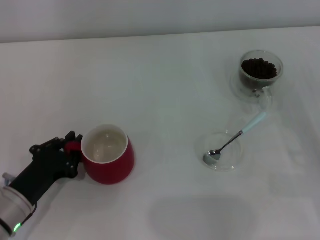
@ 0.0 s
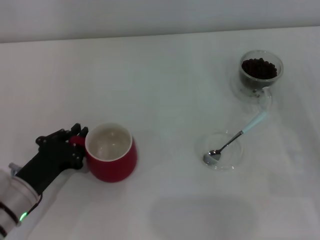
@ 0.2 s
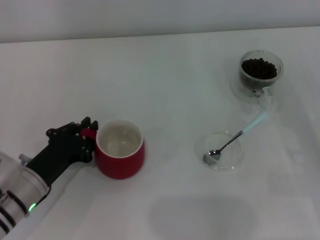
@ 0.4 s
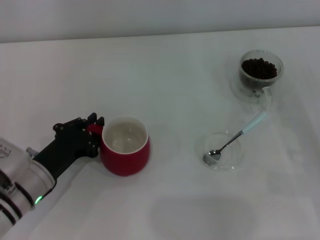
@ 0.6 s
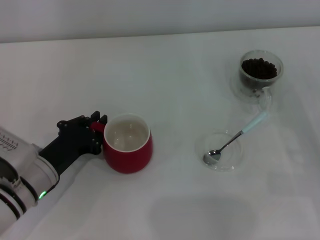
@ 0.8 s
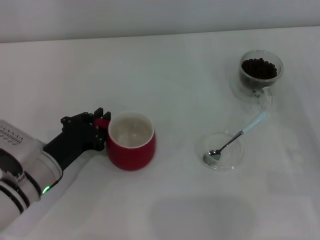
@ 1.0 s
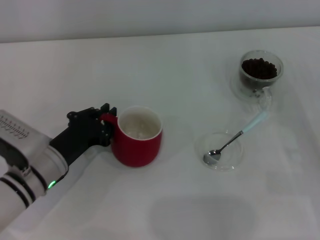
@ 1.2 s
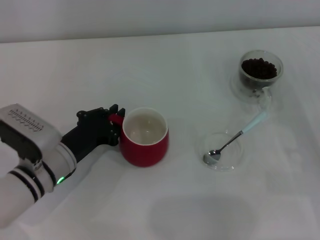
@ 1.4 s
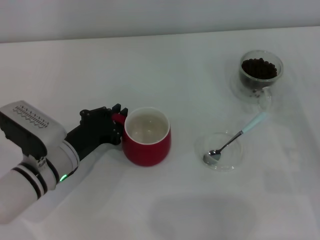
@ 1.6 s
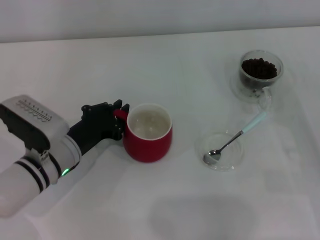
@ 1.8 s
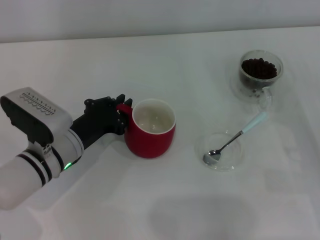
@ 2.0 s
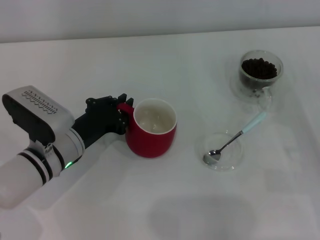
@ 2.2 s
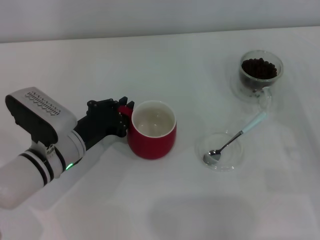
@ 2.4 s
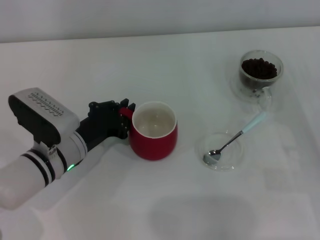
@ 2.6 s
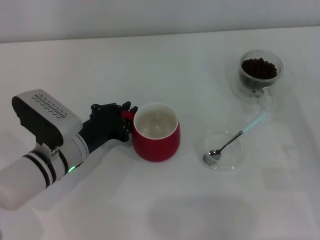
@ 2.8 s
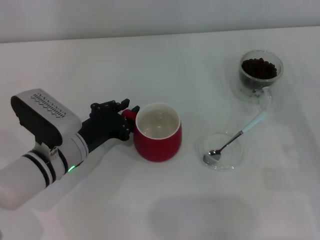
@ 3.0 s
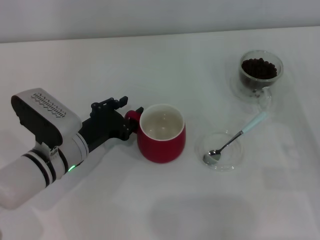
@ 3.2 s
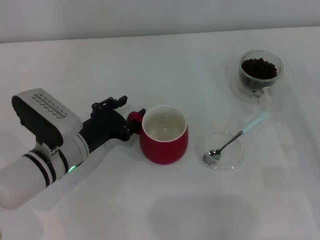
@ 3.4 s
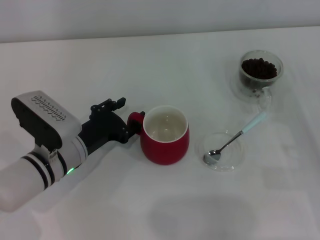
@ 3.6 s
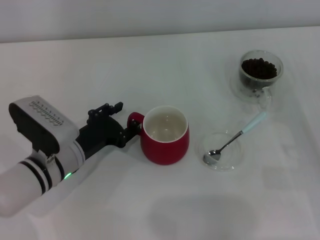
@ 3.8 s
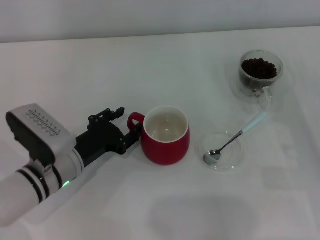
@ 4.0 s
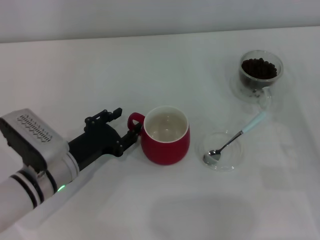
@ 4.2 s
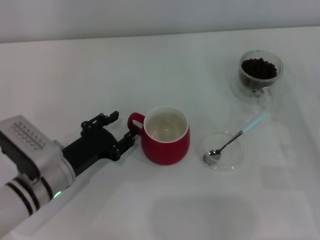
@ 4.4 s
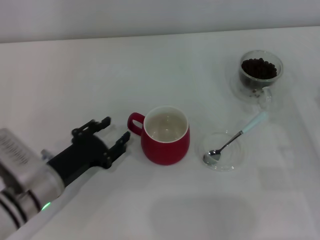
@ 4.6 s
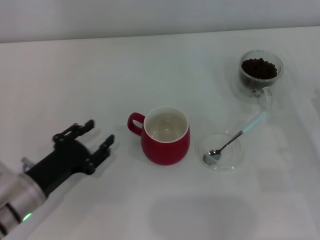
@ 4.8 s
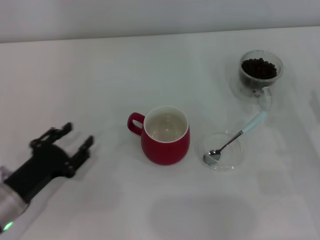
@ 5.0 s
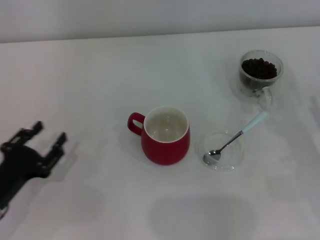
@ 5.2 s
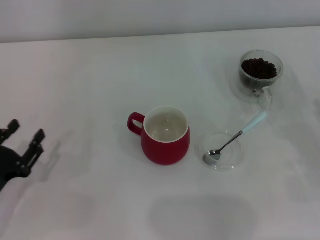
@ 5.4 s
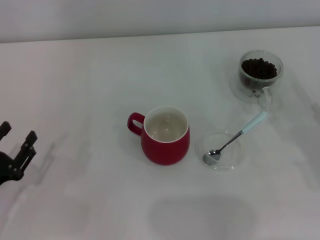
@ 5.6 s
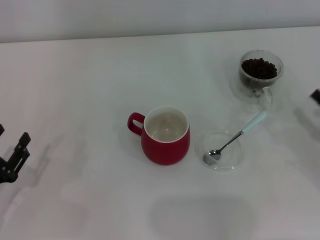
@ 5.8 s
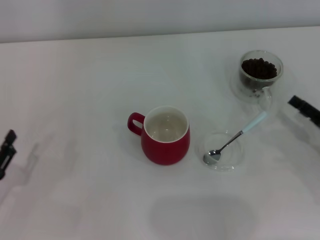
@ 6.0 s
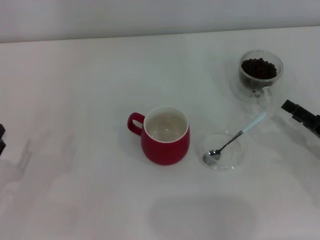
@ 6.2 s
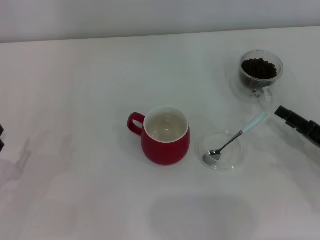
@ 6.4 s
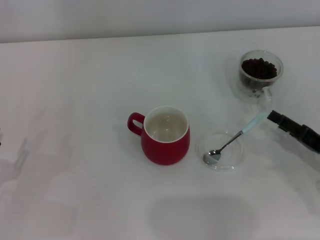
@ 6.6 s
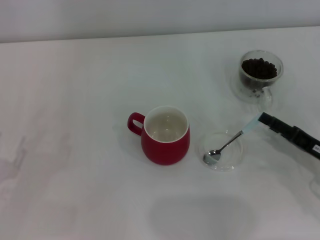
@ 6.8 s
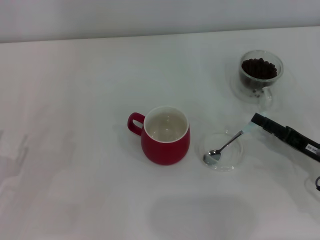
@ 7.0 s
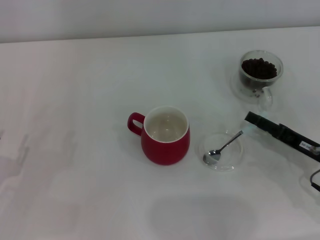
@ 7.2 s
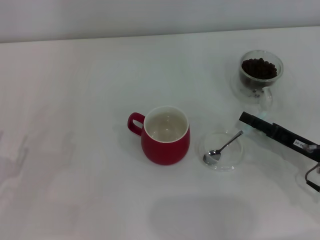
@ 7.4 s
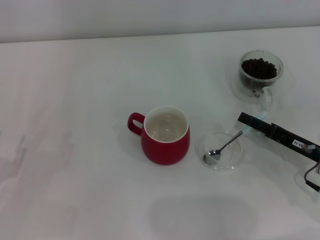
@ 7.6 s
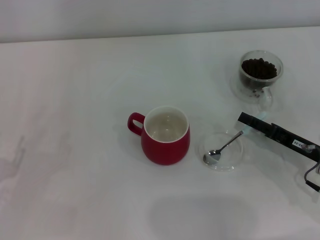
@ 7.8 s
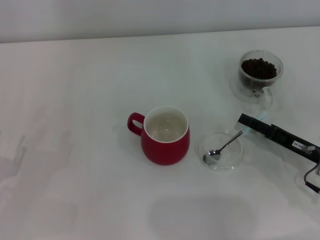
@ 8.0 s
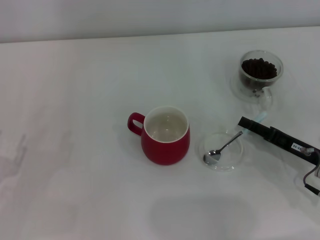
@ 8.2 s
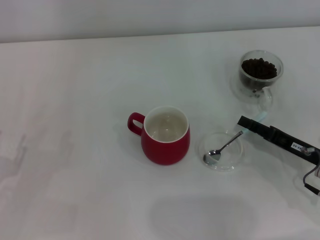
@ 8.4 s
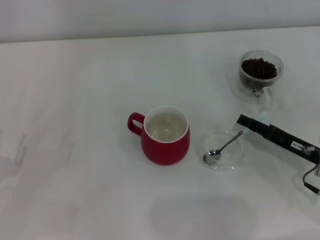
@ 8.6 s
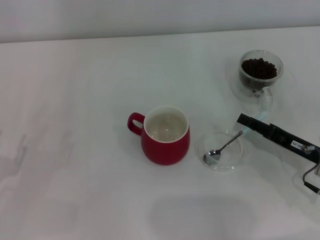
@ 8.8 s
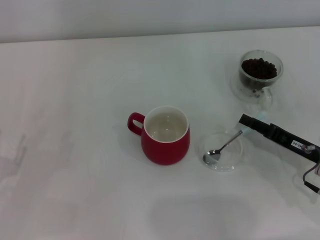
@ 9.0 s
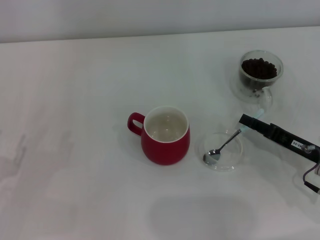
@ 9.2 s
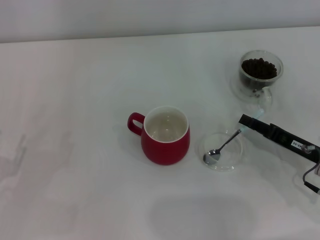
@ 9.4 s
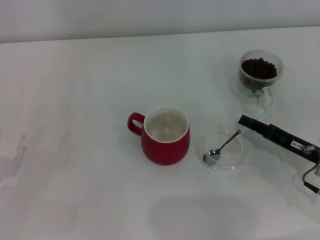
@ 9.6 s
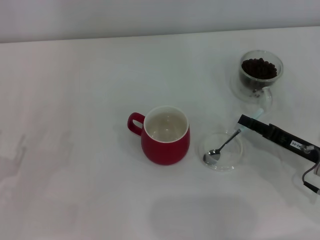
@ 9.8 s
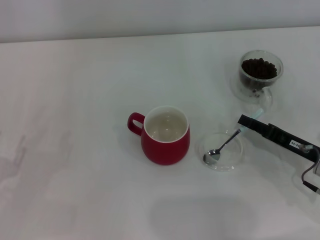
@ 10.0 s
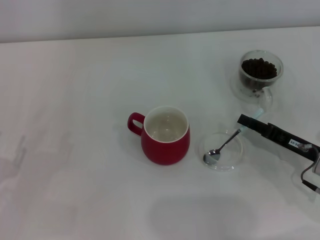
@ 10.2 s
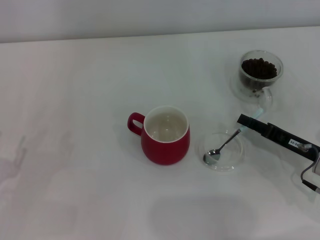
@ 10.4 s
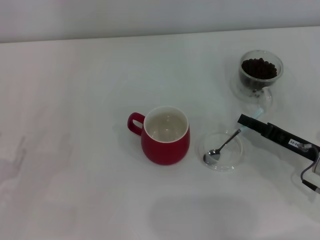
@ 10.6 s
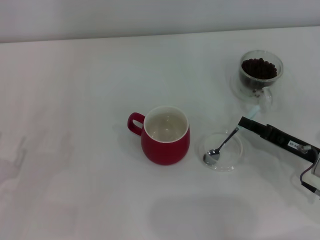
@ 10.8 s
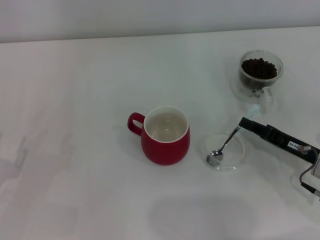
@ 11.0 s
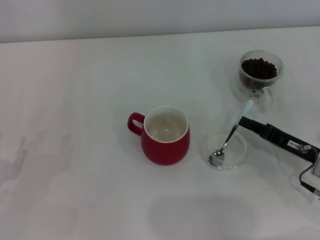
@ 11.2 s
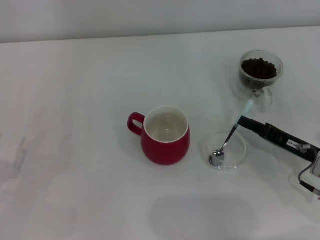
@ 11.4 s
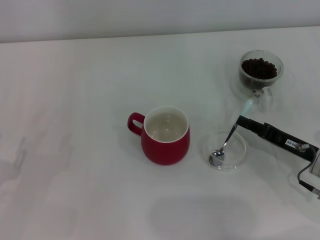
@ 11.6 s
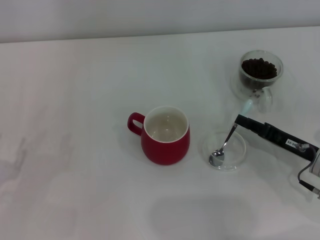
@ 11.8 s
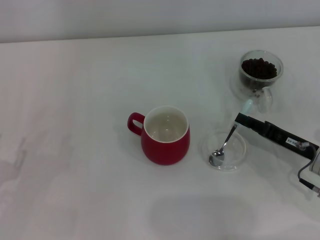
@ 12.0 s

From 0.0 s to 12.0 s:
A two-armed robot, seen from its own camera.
Task of the whole recording: Use a blue spoon to take out the coffee beans from the glass and pour them into the red cup.
Step, from 0.0 s to 4.4 s: Move the cup to the center of view with the left gripper.
From 0.0 s to 1.6 s: The left gripper goes approximately 10 cm forward and to the right.
From 1.6 s to 3.0 s: The grippers make only small movements.
From 3.0 s to 4.4 s: The left gripper opens.
From 4.4 s to 6.0 s: The left gripper moves to the left and backward, about 15 cm.
From 6.0 s to 7.6 s: The right gripper goes approximately 5 cm to the left.
From 7.6 s to 9.0 s: The two grippers keep their place.
From 9.0 s to 10.4 s: The right gripper closes its fingers.
From 10.4 s to 12.0 s: The two grippers keep their place.

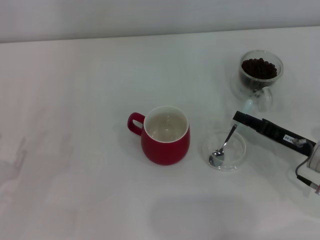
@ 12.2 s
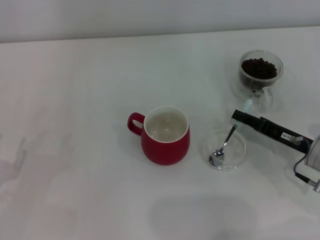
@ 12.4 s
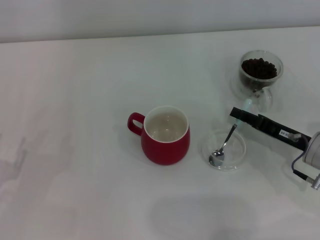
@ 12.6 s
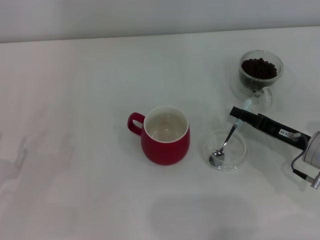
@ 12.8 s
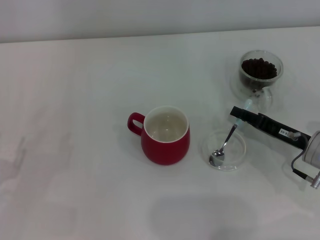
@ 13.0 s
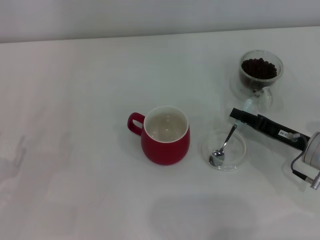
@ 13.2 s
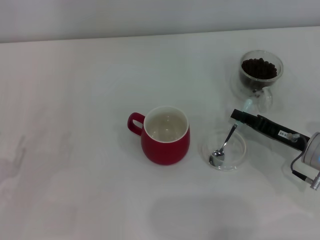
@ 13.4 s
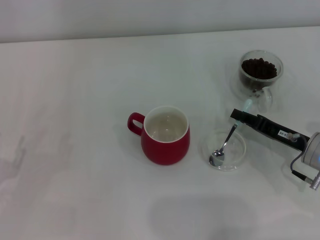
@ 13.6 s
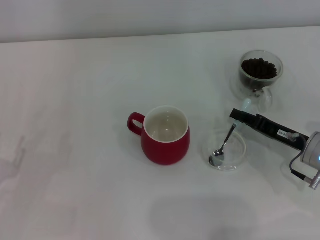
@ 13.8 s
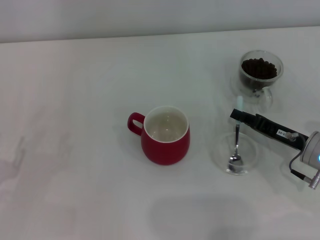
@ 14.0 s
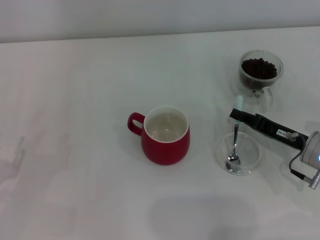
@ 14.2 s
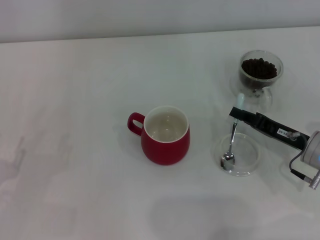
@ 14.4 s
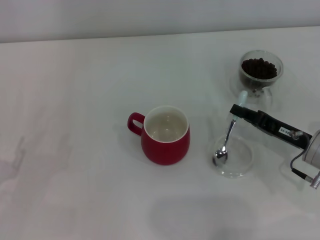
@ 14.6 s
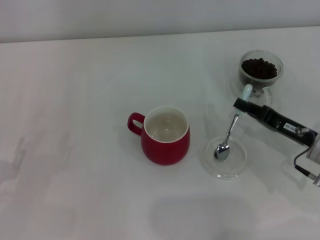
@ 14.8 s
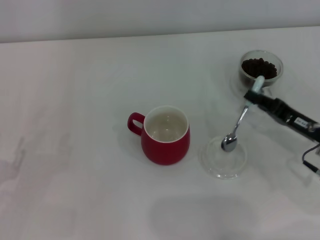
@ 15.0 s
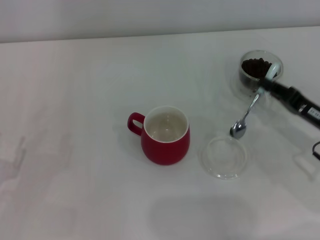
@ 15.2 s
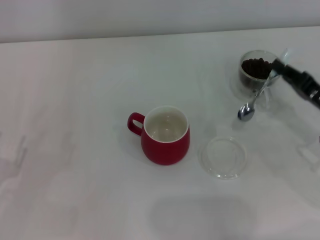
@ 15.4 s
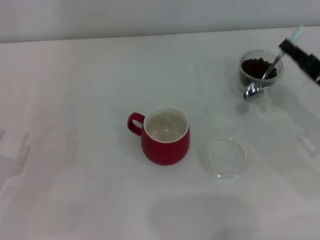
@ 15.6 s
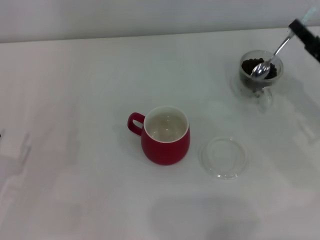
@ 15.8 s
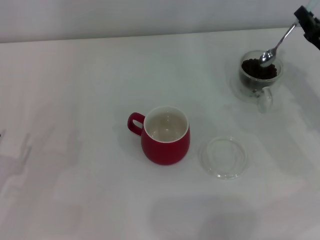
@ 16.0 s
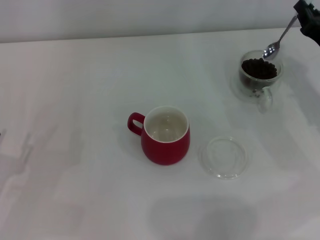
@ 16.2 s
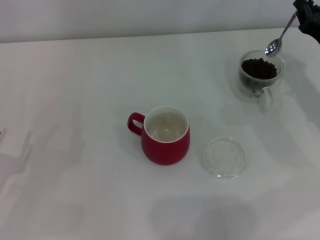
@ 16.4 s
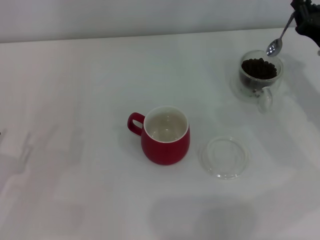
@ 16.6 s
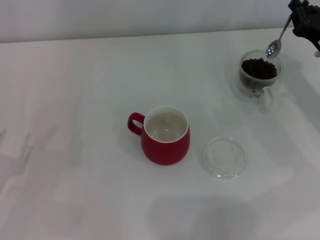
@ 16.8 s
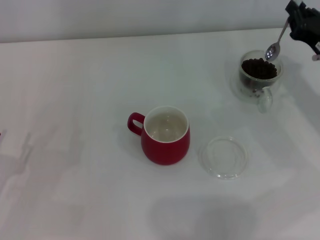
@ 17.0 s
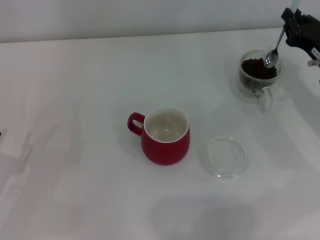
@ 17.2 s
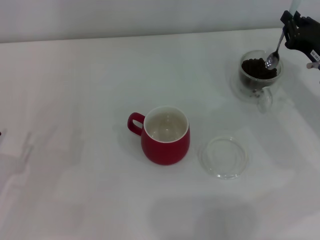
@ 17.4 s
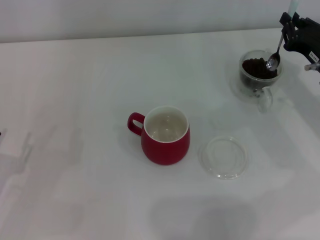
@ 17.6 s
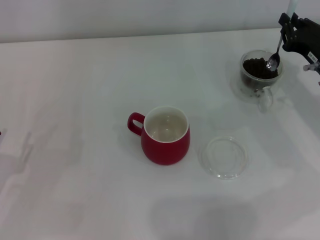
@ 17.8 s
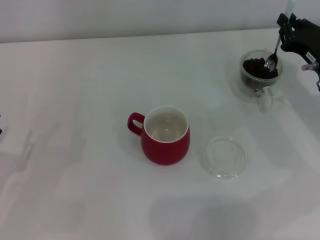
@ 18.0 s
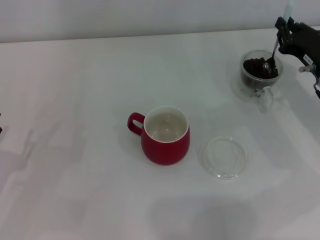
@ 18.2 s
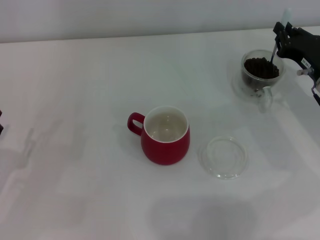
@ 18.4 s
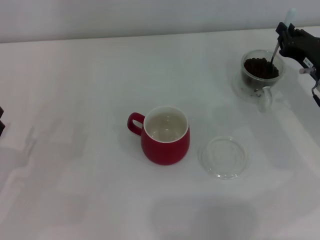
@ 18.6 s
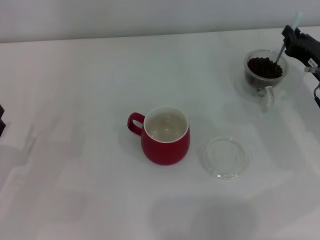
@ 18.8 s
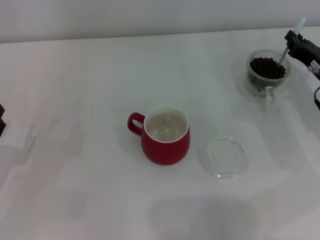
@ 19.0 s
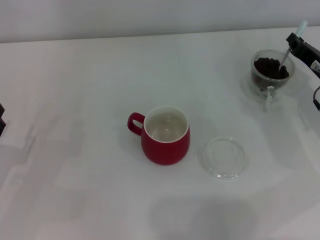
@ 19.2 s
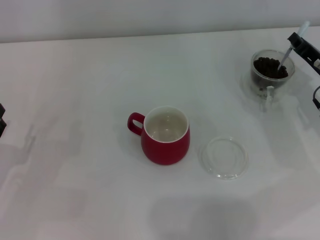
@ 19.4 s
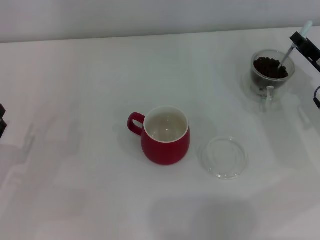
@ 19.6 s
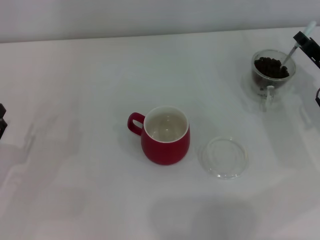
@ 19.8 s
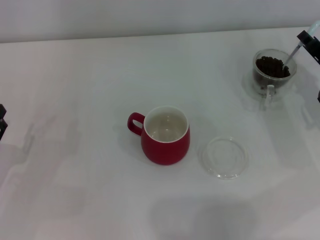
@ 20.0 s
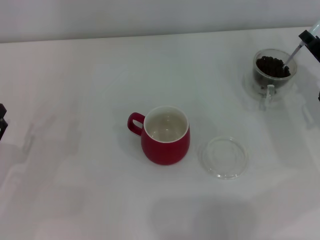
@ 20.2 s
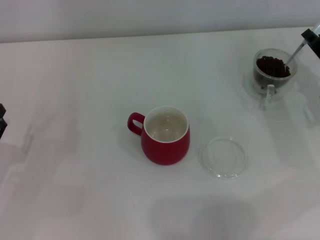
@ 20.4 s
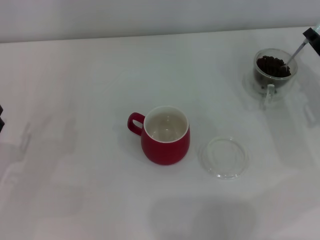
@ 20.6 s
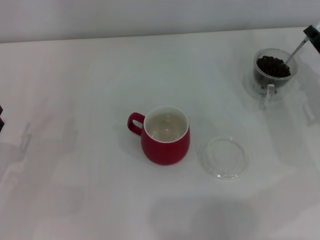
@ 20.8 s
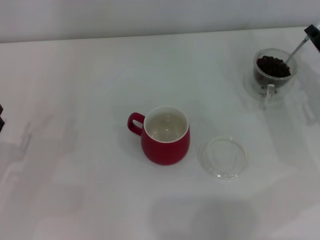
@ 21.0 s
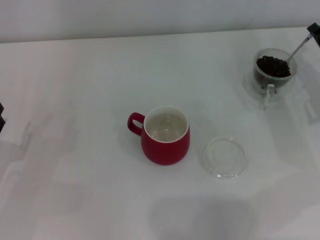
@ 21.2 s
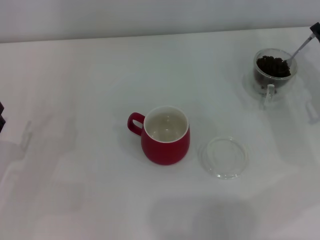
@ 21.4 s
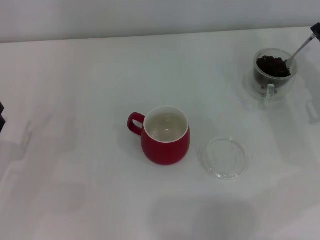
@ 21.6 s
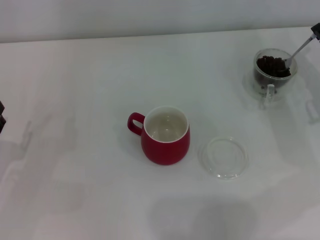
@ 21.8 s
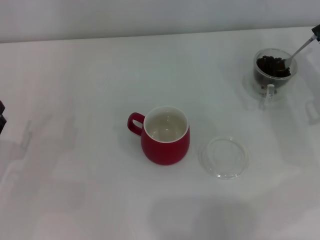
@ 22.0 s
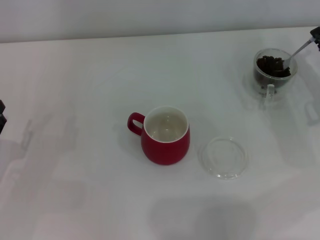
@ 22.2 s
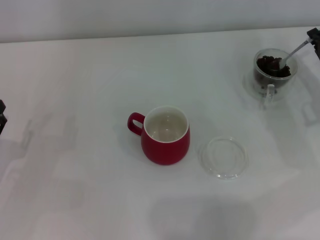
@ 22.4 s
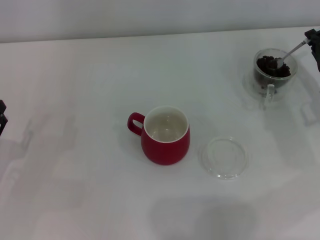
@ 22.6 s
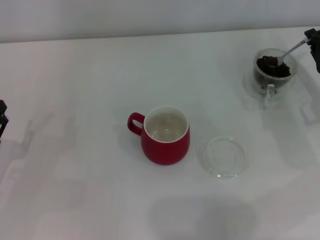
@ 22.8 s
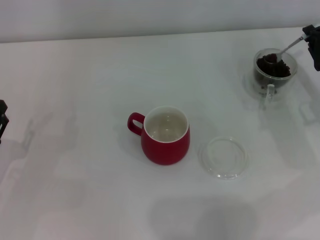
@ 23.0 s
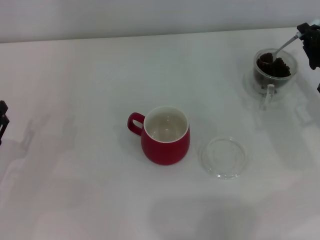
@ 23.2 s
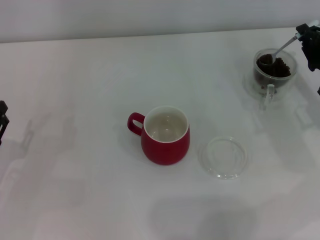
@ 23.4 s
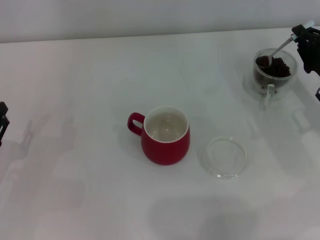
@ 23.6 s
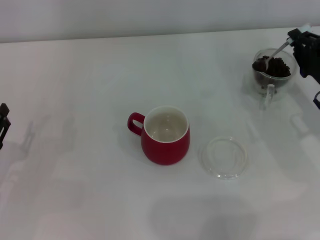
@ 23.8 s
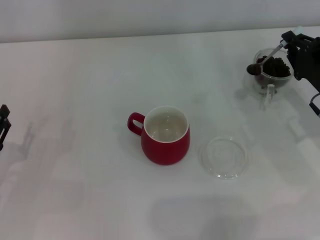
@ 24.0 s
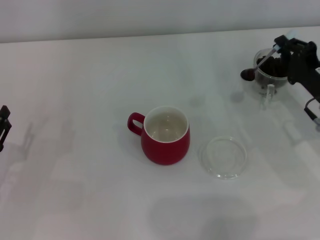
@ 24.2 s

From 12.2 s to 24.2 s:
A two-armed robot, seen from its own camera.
Task of the whole recording: Use a blue spoon to take out the coffee beans from the glass and pour them into the red cup.
Step, from 12.2 s to 15.0 s: Pick up the spoon with the right gripper.
From 12.2 s to 13.8 s: Both grippers stay about where they are.
From 13.8 s to 15.2 s: The grippers move only a little.
From 15.2 s to 16.6 s: The right gripper shifts roughly 10 cm forward.
From 16.6 s to 18.2 s: The grippers stay close to where they were, moving slightly.
From 19.8 s to 21.2 s: The grippers make only small movements.
From 22.6 s to 24.2 s: There are only small adjustments of the grippers.
